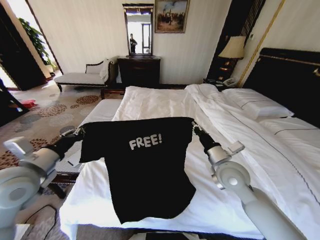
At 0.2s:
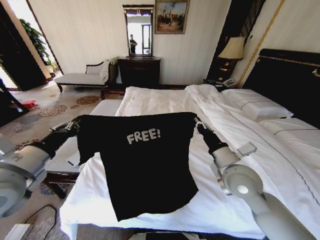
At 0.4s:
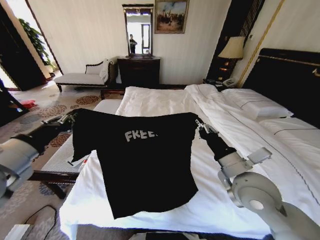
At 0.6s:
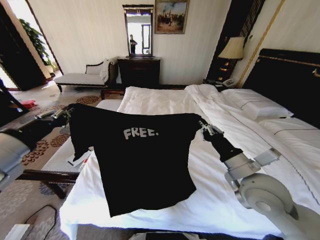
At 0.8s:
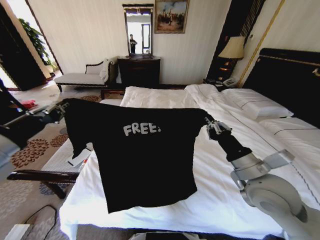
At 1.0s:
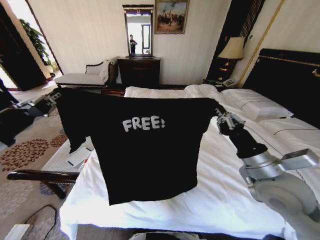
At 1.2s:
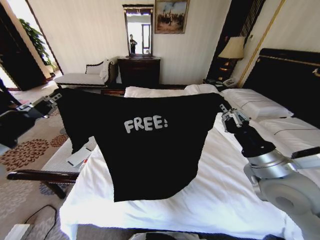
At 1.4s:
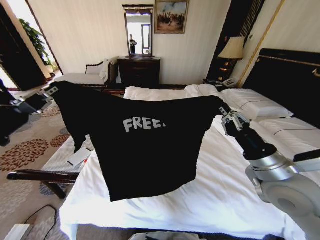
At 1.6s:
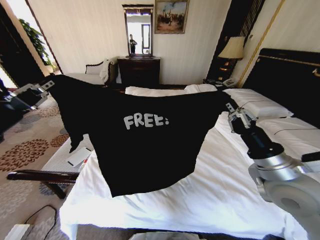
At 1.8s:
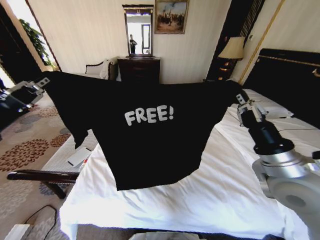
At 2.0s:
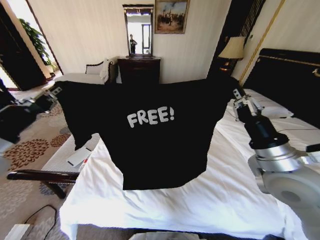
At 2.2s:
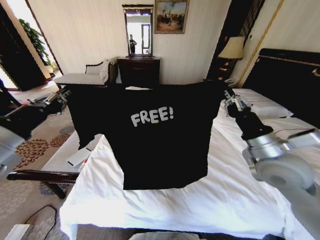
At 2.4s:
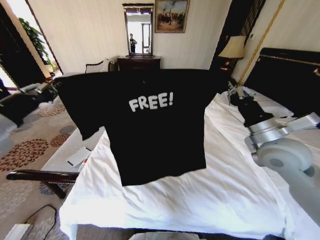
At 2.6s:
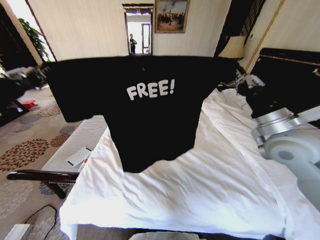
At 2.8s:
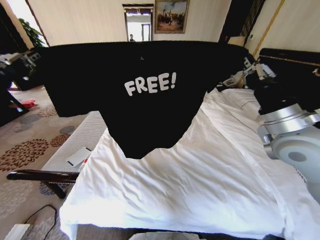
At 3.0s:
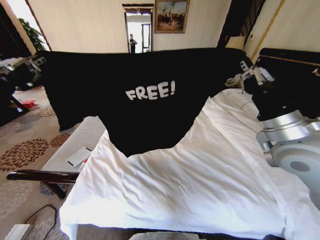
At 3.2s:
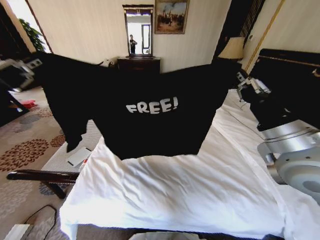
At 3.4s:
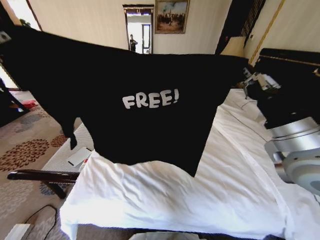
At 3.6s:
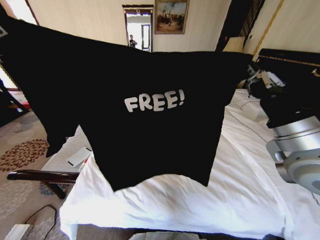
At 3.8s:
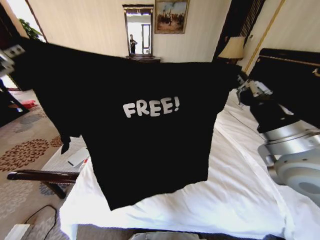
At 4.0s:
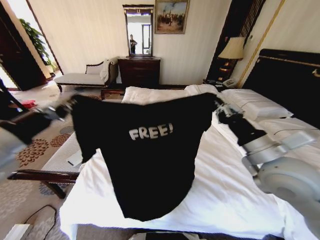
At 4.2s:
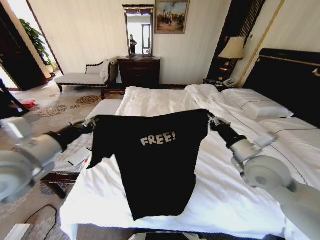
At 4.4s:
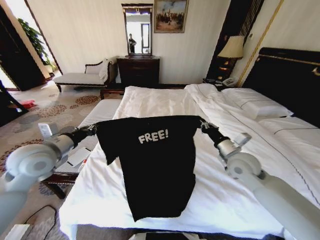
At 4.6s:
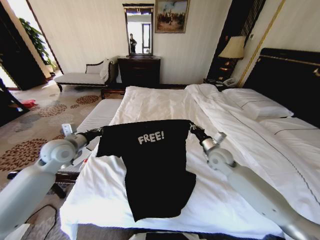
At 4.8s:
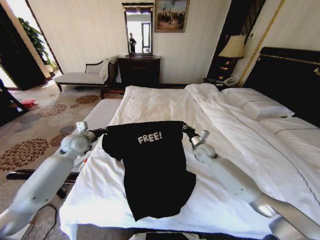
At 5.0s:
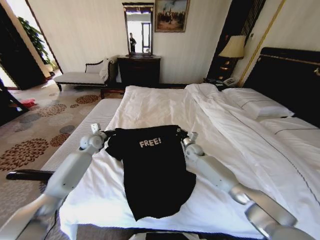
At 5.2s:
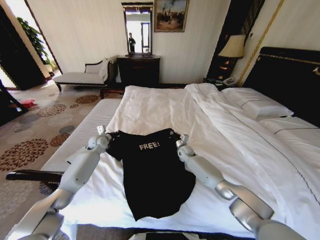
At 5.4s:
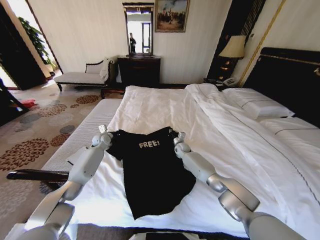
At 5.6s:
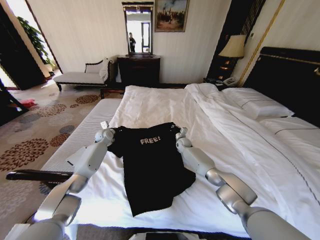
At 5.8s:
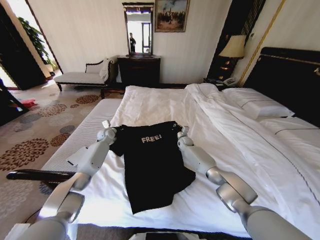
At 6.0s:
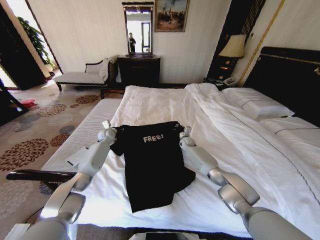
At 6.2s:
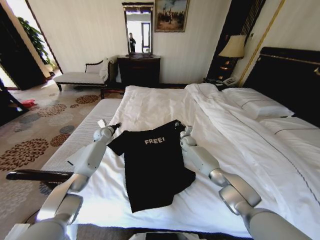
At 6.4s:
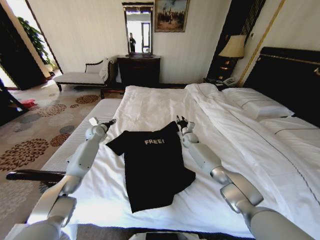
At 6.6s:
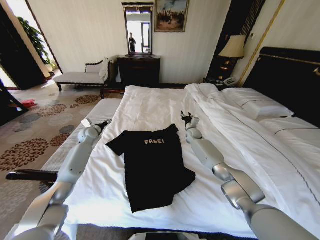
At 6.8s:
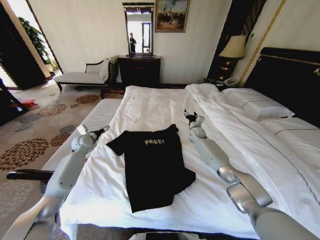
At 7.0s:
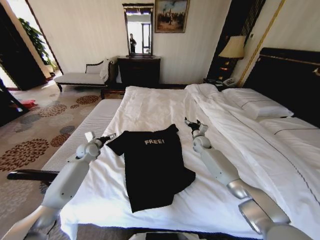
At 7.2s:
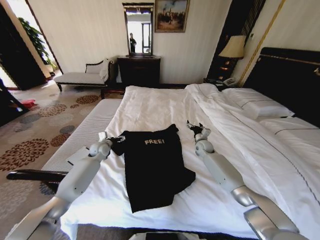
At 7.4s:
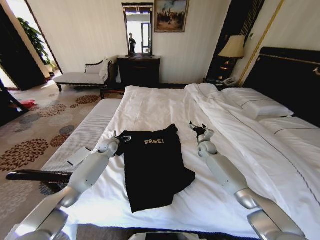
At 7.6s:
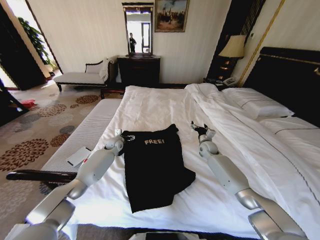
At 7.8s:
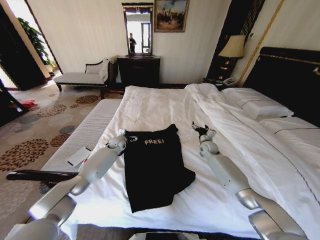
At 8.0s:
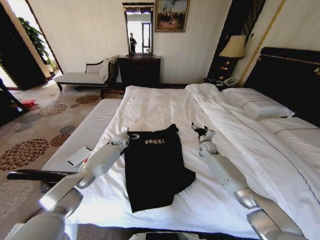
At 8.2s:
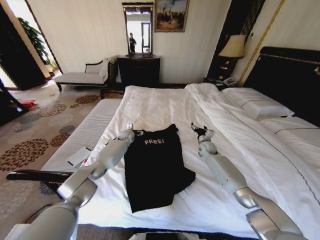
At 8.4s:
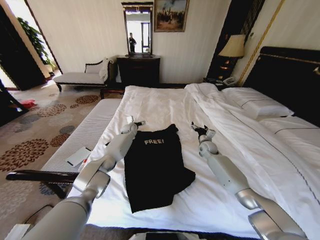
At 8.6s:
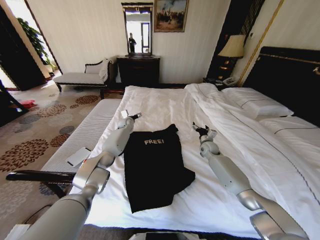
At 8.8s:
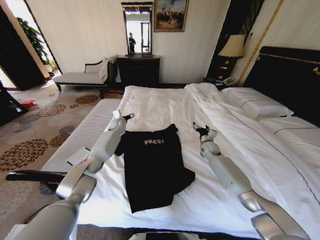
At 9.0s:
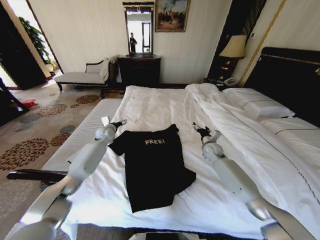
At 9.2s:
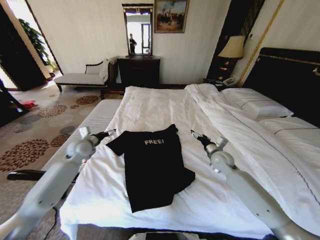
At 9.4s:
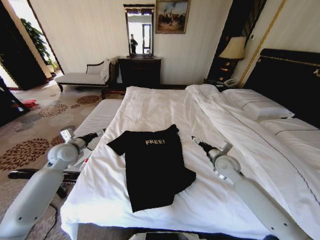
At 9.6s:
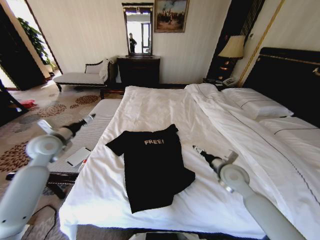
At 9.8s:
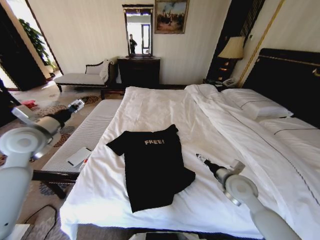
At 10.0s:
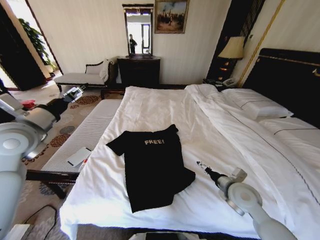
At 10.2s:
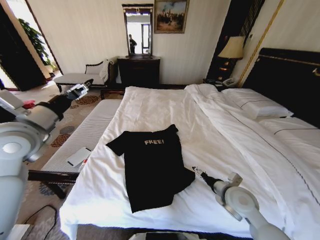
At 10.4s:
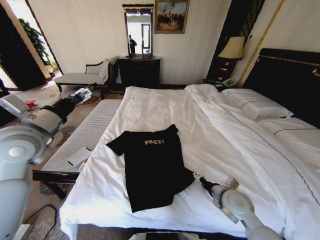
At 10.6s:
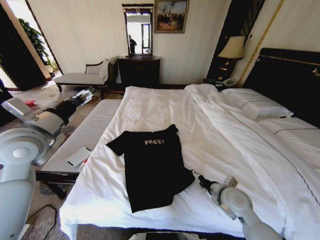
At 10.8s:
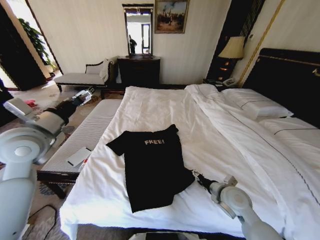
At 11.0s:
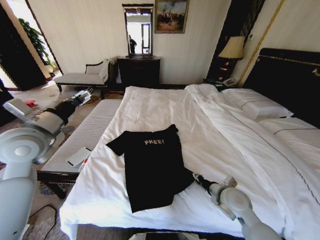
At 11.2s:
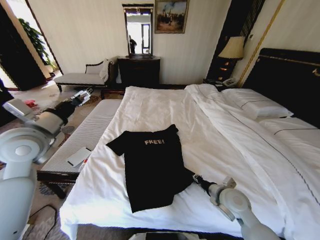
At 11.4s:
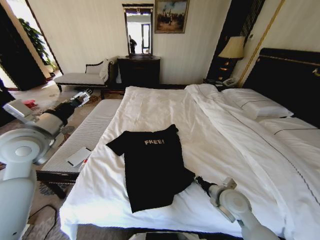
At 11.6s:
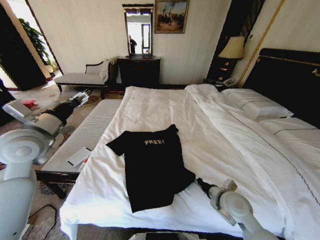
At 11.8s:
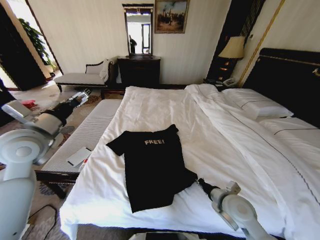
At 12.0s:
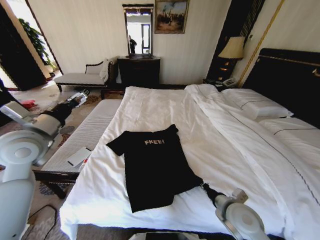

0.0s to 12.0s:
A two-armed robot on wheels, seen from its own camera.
Task of the whole recording: Fold the clothes on the bed.
0.0s to 1.6s: The left gripper travels upward and backward by some 15 cm; the right gripper is displaced backward, upward and to the right by roughly 10 cm.
1.6s to 3.0s: The right gripper heads upward, covering approximately 10 cm.
3.0s to 4.4s: The two grippers go some 20 cm downward and forward.
4.4s to 6.0s: The grippers both shift forward and downward by about 35 cm.
6.0s to 7.6s: The left gripper moves some 10 cm to the left and comes back, and opens its fingers. Meanwhile the right gripper shifts about 10 cm to the right and backward, and opens up.
7.6s to 9.0s: The left gripper is displaced upward by roughly 10 cm, and moves about 10 cm to the right and comes back.
9.0s to 10.4s: The right gripper moves backward, some 25 cm; the left gripper shifts about 35 cm backward and upward.
10.4s to 12.0s: The right gripper moves backward, about 5 cm, and closes.

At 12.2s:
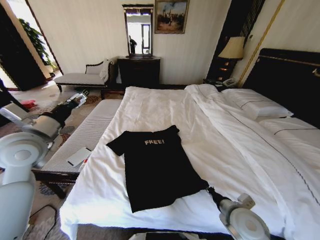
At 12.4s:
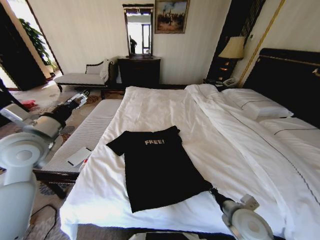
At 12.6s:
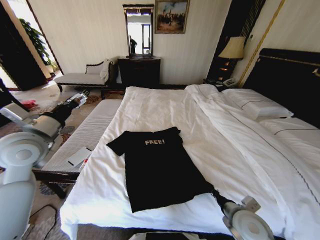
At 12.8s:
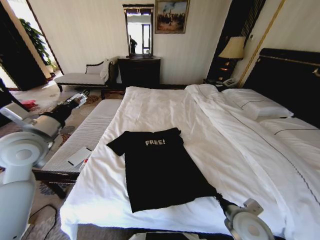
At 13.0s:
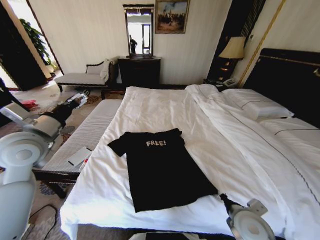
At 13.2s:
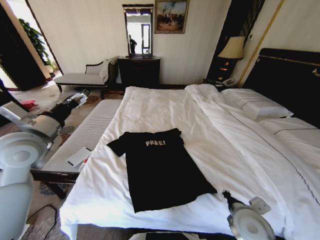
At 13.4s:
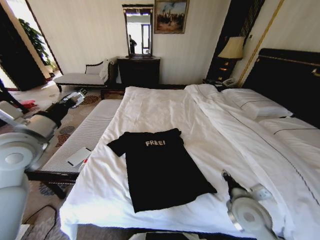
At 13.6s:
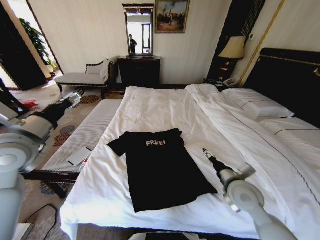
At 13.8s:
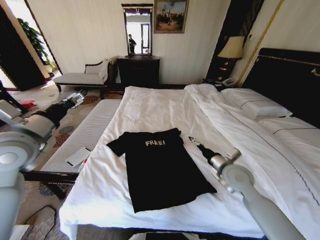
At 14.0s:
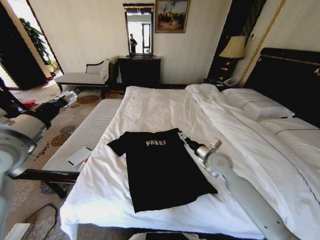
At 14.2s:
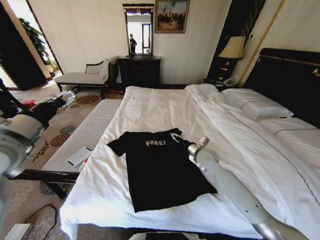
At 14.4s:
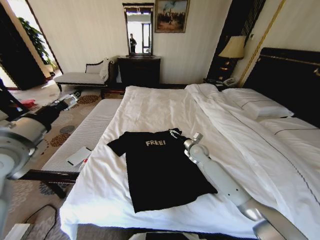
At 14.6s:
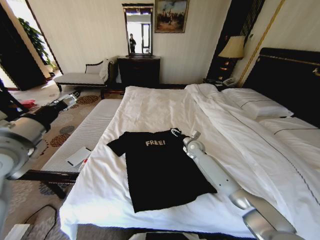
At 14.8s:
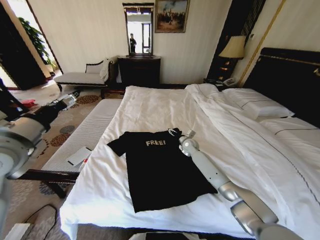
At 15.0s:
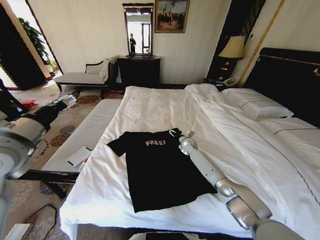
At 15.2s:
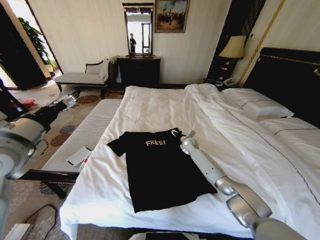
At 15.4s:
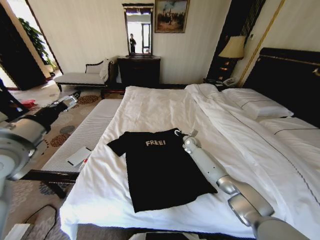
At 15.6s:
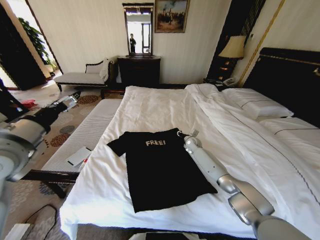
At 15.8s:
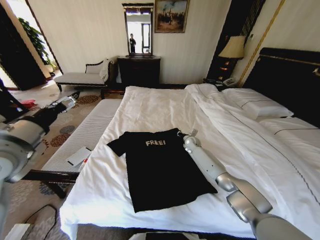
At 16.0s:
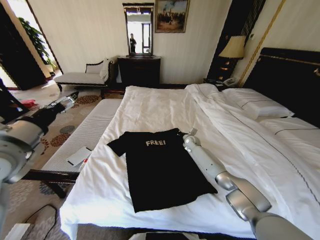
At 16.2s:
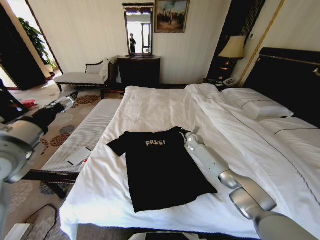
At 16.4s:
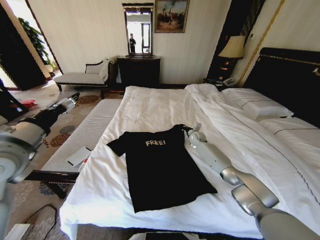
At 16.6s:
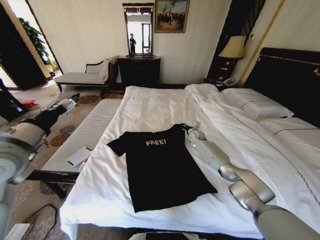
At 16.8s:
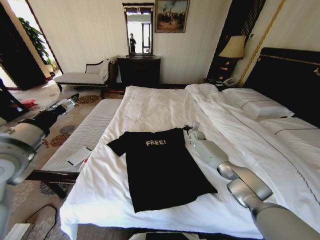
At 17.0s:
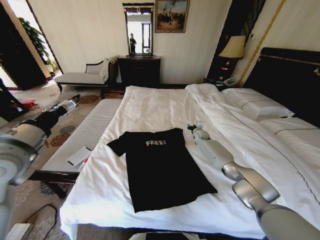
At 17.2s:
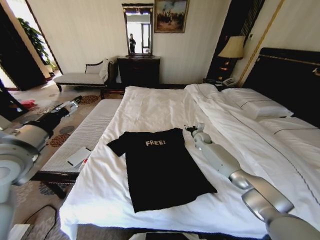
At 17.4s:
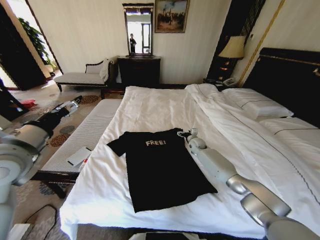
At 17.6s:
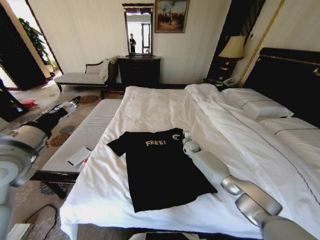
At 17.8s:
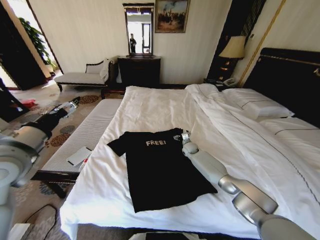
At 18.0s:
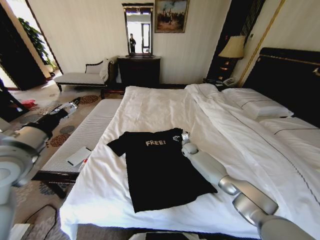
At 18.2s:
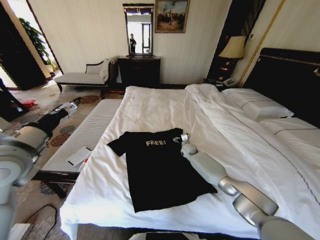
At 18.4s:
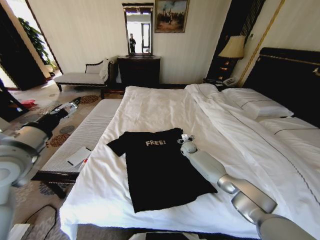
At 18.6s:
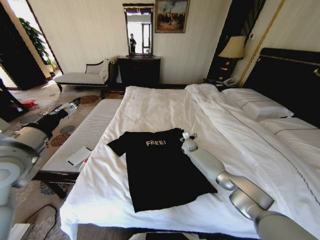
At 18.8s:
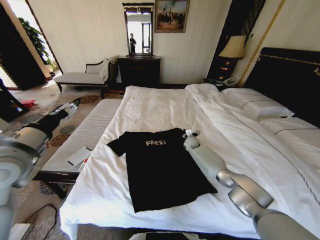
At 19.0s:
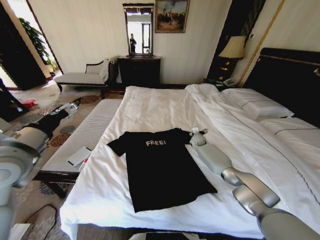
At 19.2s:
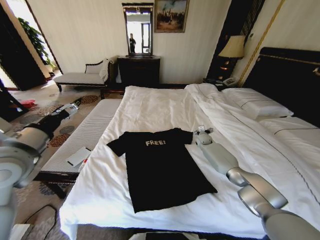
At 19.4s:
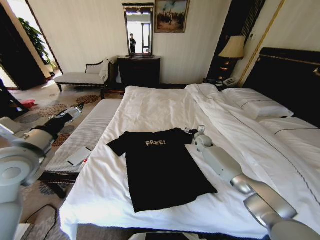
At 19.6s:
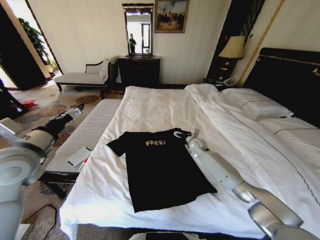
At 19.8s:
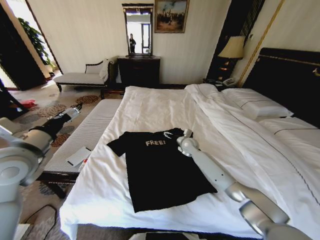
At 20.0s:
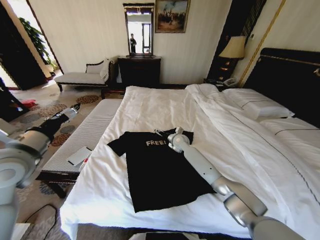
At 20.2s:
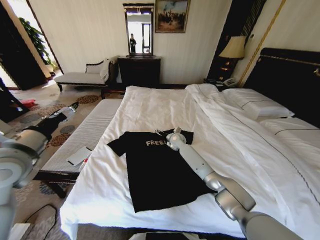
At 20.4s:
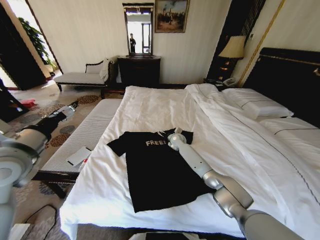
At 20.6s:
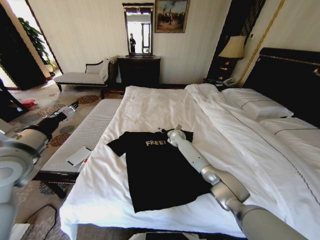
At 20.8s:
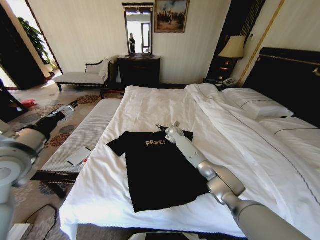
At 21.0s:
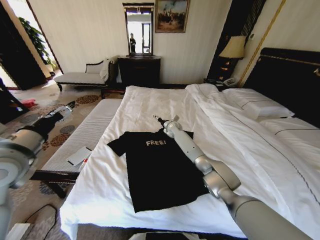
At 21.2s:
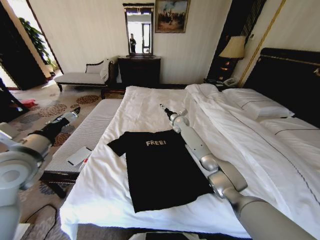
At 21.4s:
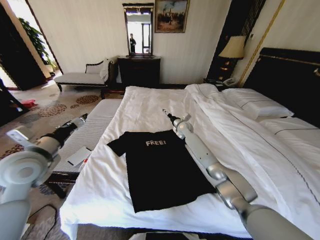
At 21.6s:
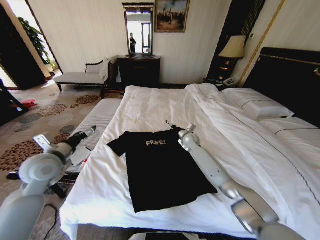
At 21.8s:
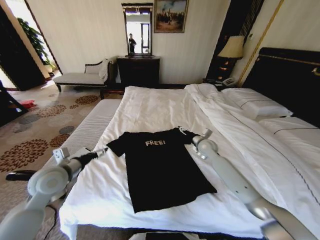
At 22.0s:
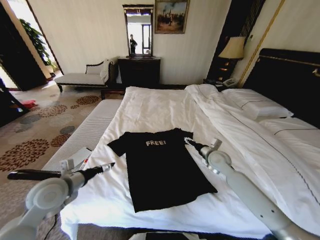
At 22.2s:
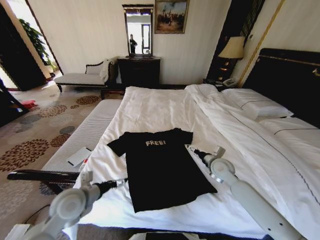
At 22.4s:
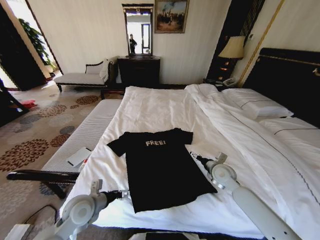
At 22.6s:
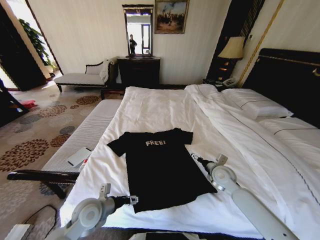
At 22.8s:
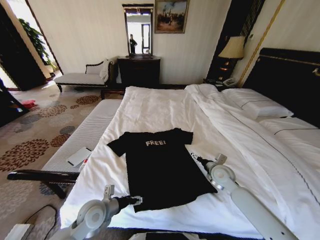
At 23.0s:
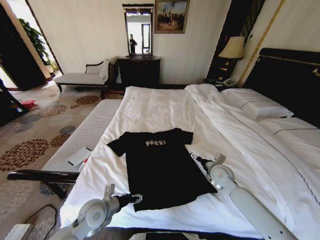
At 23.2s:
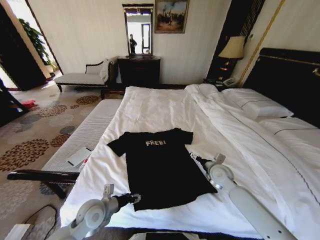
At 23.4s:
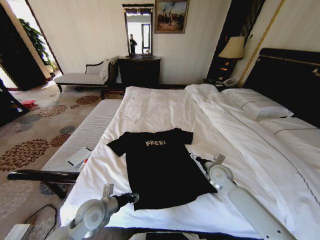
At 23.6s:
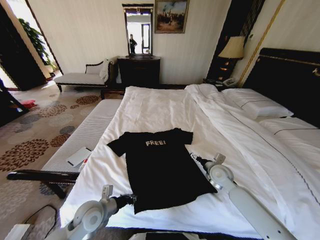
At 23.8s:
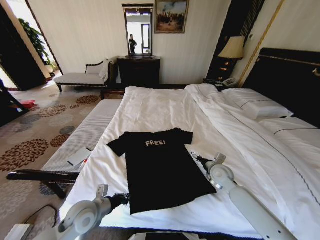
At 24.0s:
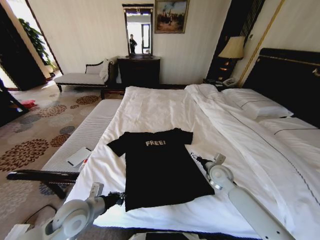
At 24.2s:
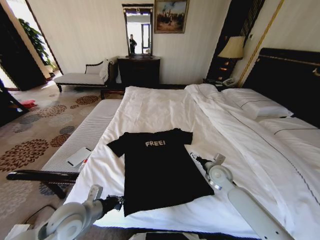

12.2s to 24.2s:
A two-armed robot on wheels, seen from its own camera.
Task of the whole recording: Fold the clothes on the bed.
12.2s to 13.8s: The right gripper goes about 15 cm forward and upward, and opens its fingers.
13.8s to 15.2s: The right gripper travels forward and downward by some 30 cm.
15.2s to 16.6s: The right gripper goes some 5 cm to the right, and closes its fingers.
16.6s to 18.2s: The right gripper travels downward, backward and to the left by approximately 10 cm, and opens up.
18.2s to 19.8s: The right gripper moves upward, some 10 cm, and moves about 10 cm to the right and comes back.
19.8s to 21.2s: The right gripper travels forward and upward by approximately 15 cm.
21.2s to 22.6s: The right gripper shifts about 35 cm backward and to the right. The left gripper travels downward and to the right by approximately 25 cm.
22.6s to 24.2s: The left gripper travels upward by roughly 5 cm, and closes.
